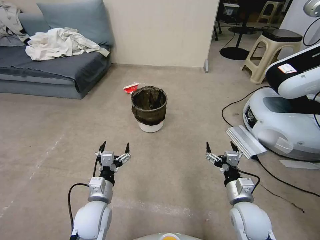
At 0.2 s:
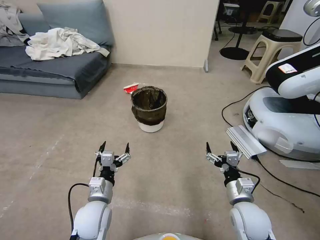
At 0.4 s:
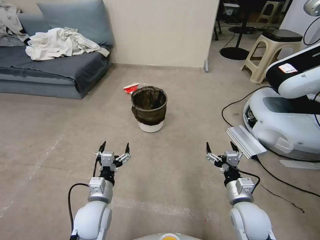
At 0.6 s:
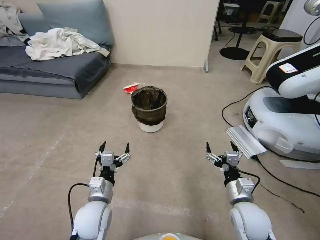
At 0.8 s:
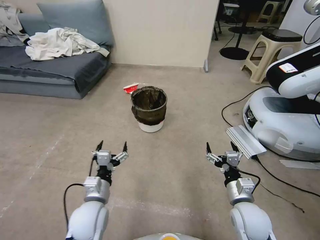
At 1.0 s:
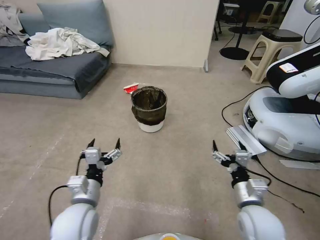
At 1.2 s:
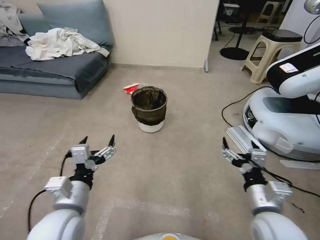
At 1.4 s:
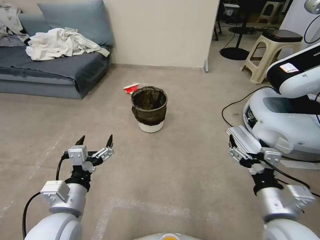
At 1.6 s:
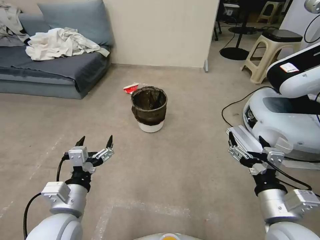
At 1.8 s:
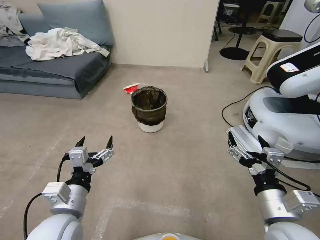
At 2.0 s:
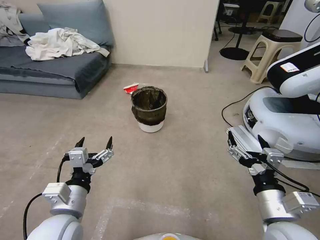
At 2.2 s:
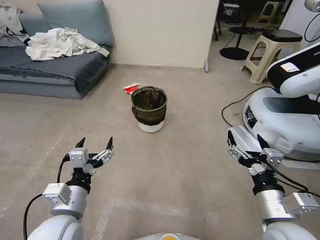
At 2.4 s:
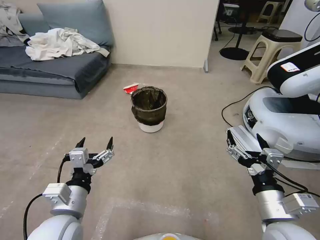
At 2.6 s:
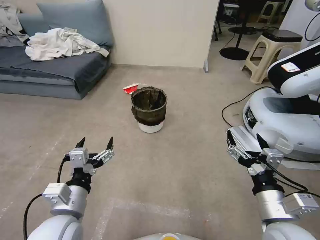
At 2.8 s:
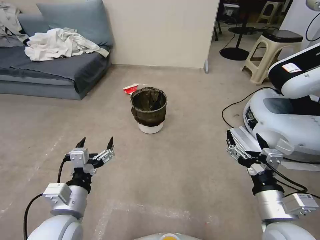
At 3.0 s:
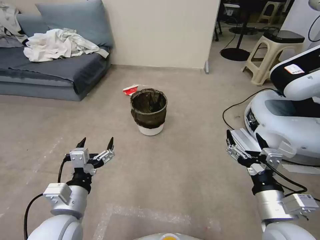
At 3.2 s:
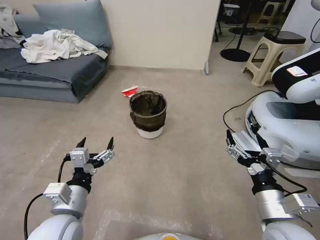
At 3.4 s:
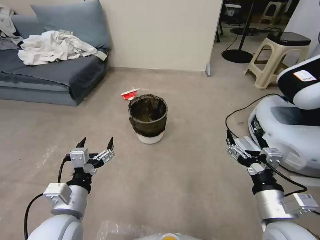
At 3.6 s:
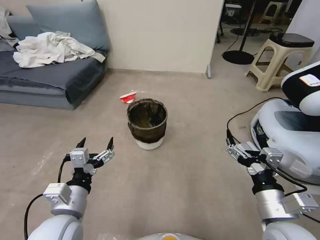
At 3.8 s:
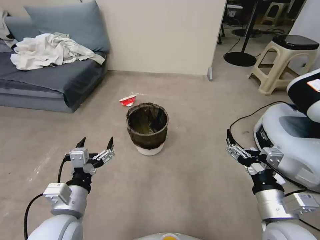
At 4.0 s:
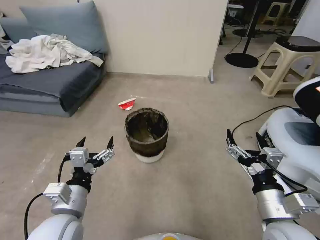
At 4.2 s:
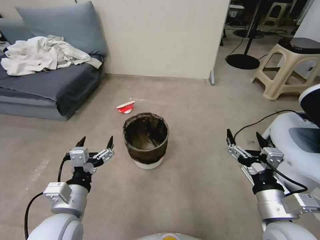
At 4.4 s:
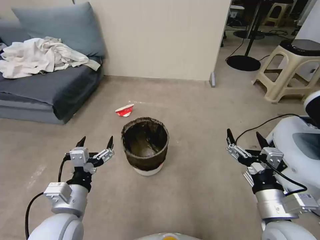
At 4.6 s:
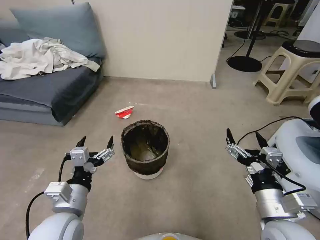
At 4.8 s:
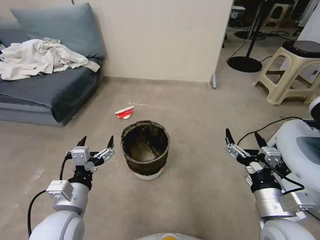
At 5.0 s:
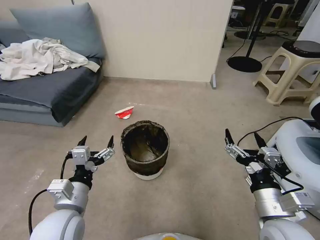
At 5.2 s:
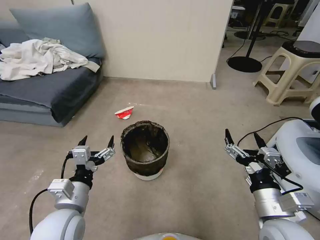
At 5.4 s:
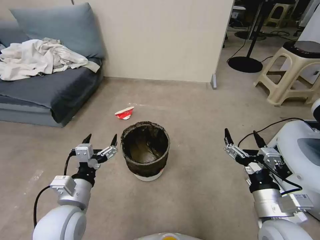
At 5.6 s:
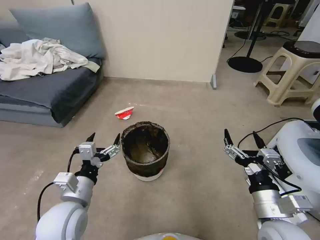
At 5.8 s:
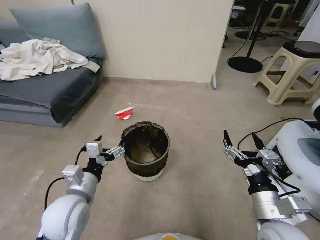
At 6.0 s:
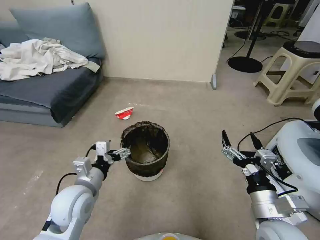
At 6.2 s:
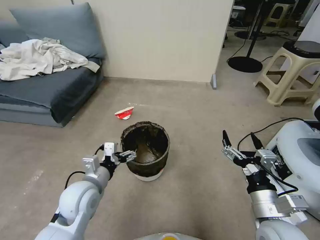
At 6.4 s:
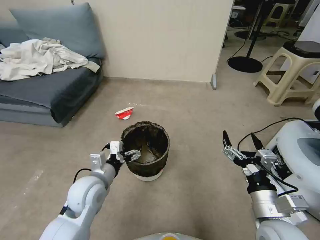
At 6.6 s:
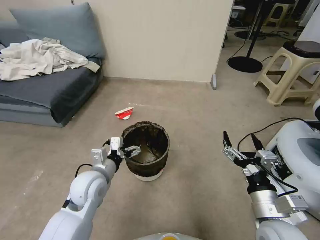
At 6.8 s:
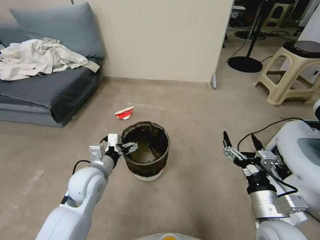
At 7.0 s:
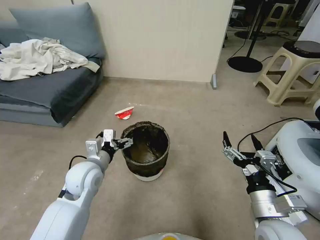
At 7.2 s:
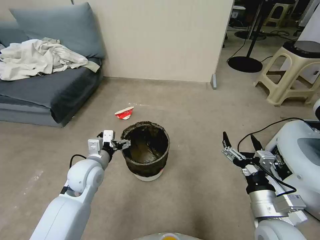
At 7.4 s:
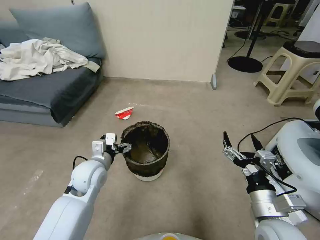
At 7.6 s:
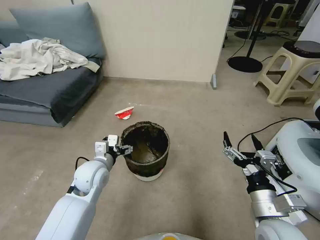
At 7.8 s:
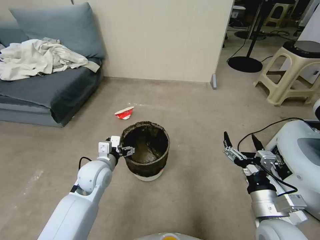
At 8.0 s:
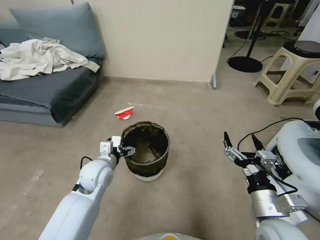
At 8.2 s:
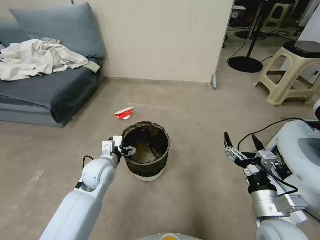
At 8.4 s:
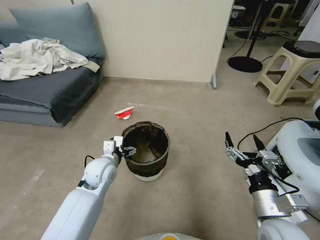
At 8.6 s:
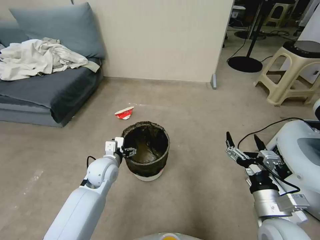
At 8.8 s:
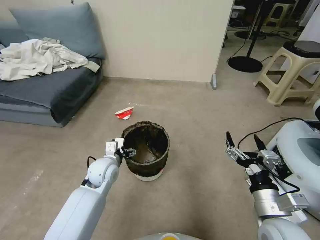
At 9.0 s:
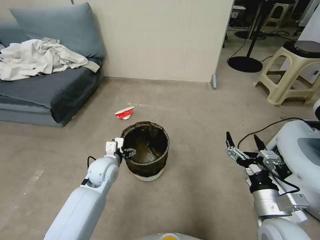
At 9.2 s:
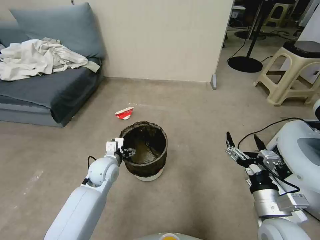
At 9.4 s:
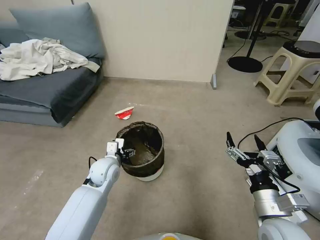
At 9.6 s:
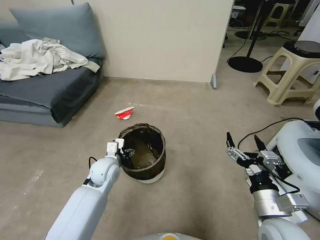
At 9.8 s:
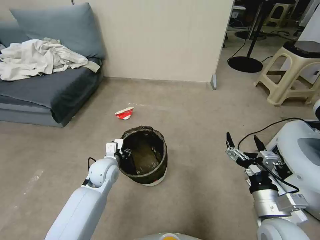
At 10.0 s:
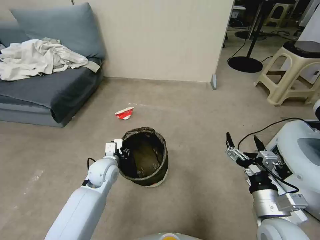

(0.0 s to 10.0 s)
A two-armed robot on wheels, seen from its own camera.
Task of the whole recording: Pick up the trash can from the floor.
1.4 s - 2.8 s: The grippers move only a little.
4.2 s - 5.8 s: The left gripper changes place by some 5 cm.
5.8 s - 7.2 s: The left gripper moves forward, about 10 cm.
7.2 s - 8.6 s: The left gripper travels downward by some 5 cm.
8.6 s - 10.0 s: The left gripper closes.

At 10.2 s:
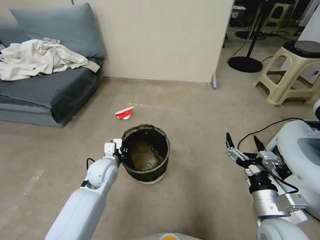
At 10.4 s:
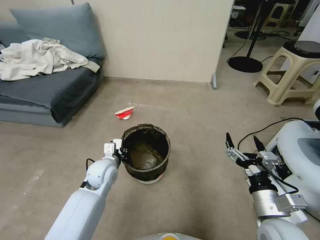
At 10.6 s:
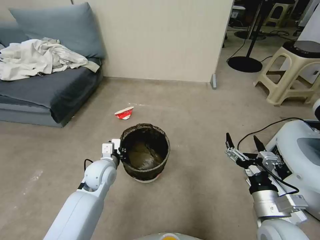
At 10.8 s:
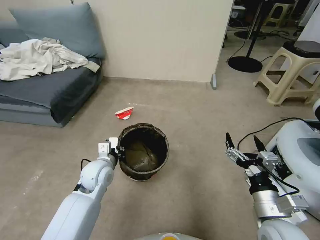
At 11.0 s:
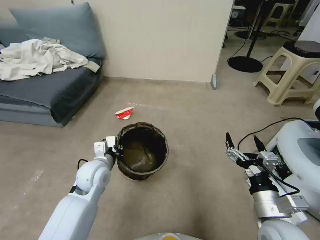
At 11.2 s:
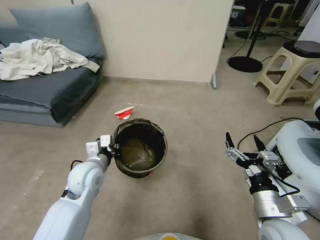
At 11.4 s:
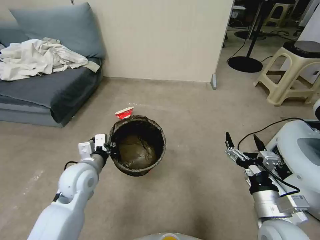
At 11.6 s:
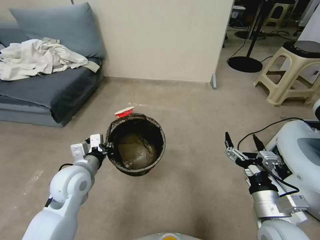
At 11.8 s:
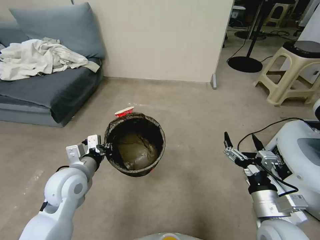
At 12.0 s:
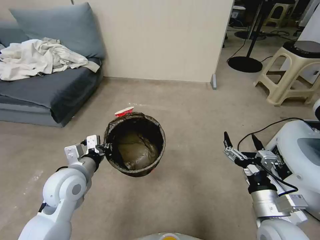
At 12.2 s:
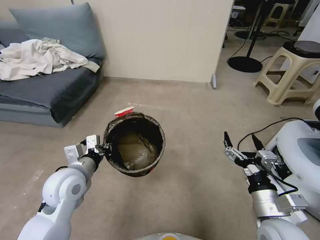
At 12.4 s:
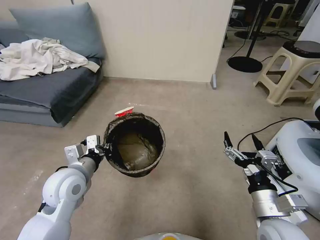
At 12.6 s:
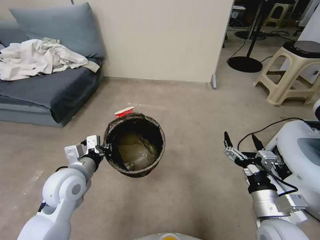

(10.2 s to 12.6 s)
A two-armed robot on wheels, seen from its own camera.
Task of the whole recording: Pick up the trash can from the floor.
10.2 s - 11.4 s: The left gripper travels upward and backward by roughly 10 cm.
11.4 s - 12.6 s: The grippers stay close to where they were, moving slightly.
